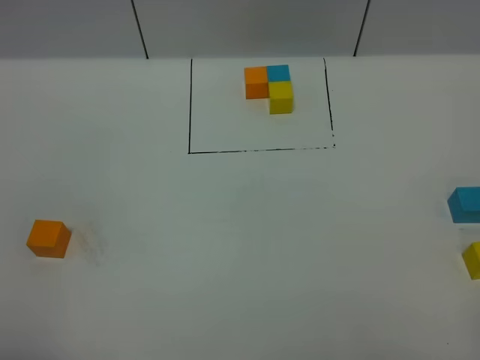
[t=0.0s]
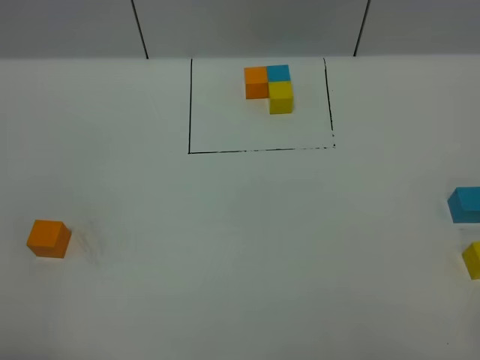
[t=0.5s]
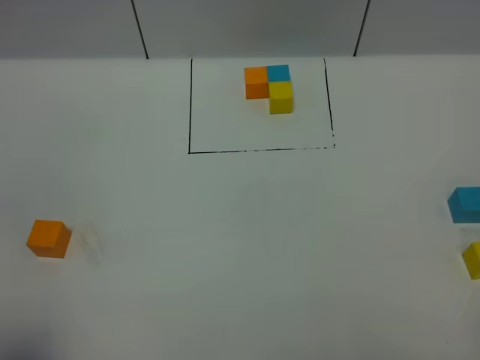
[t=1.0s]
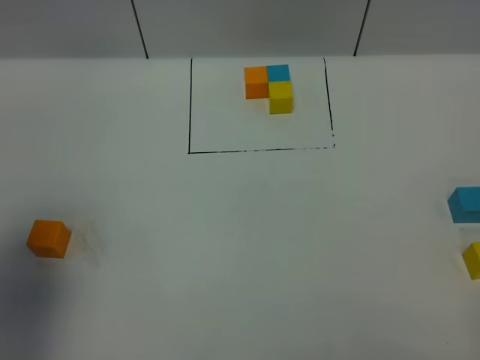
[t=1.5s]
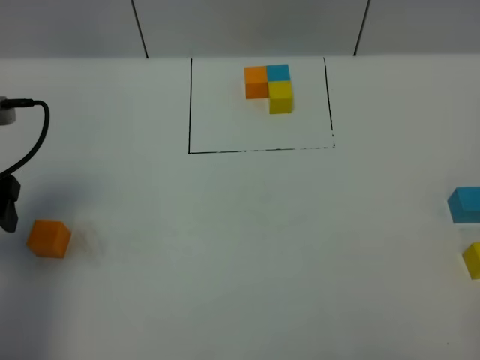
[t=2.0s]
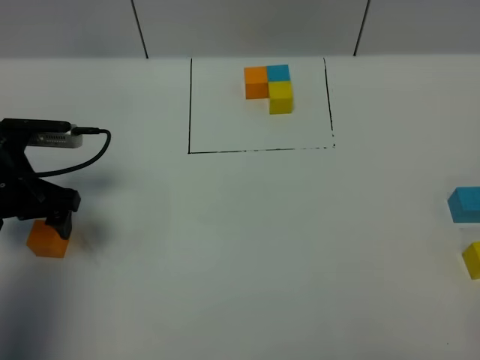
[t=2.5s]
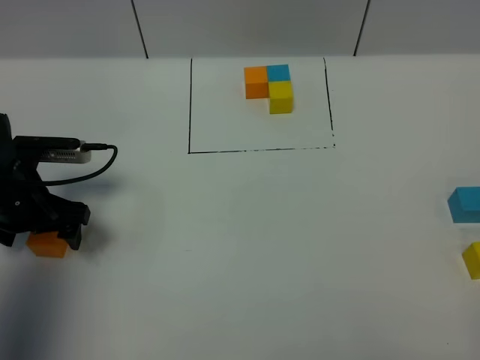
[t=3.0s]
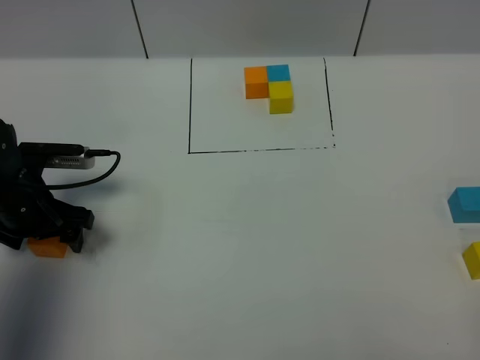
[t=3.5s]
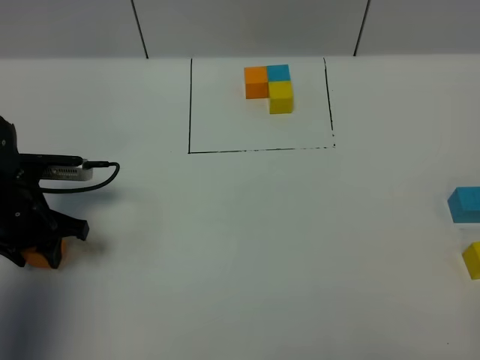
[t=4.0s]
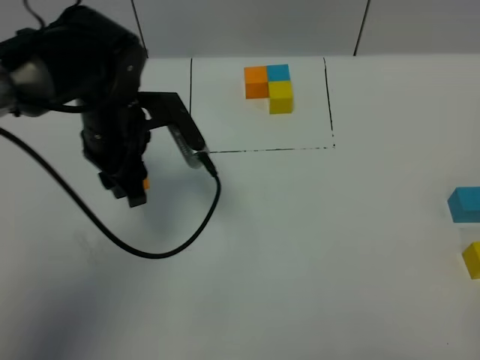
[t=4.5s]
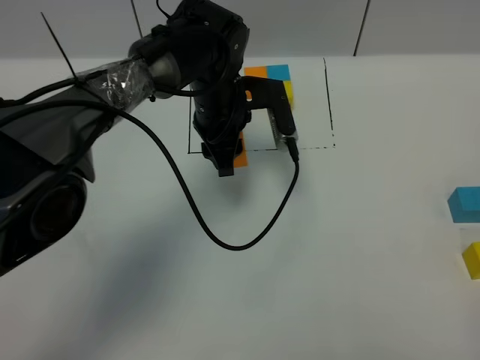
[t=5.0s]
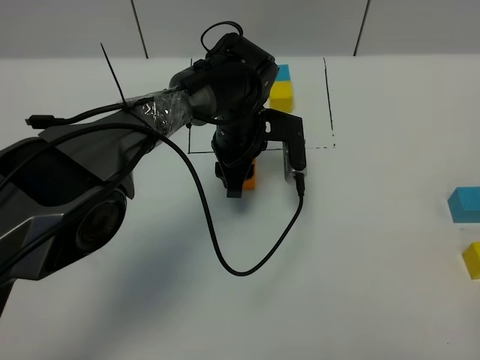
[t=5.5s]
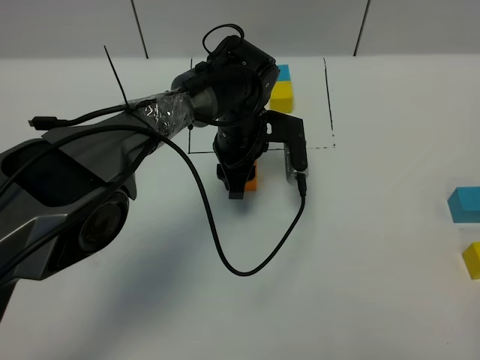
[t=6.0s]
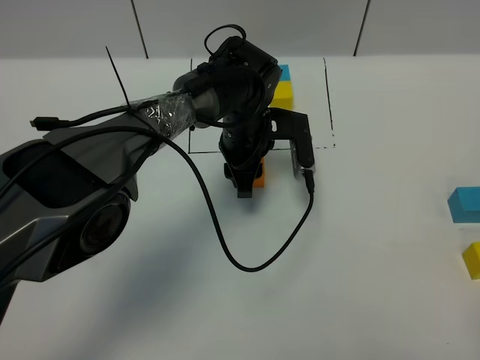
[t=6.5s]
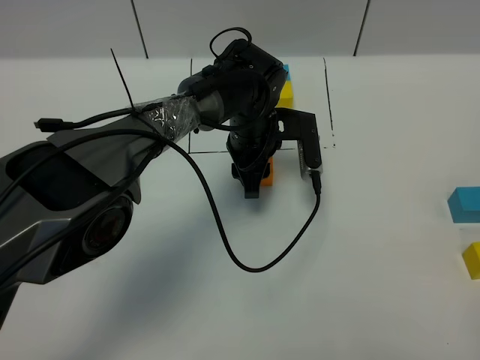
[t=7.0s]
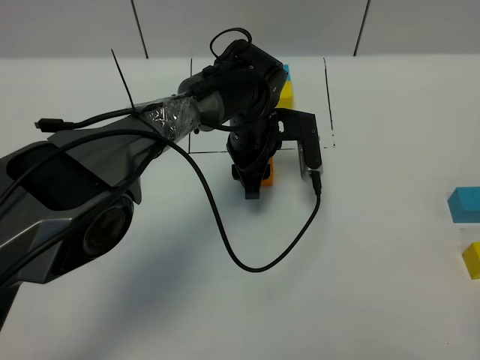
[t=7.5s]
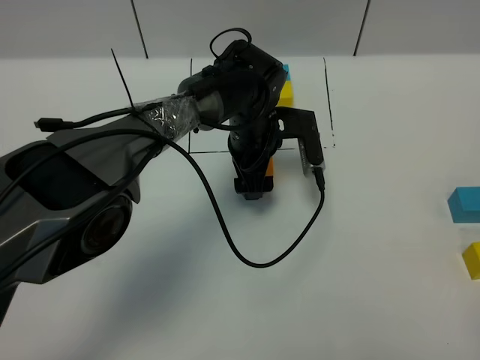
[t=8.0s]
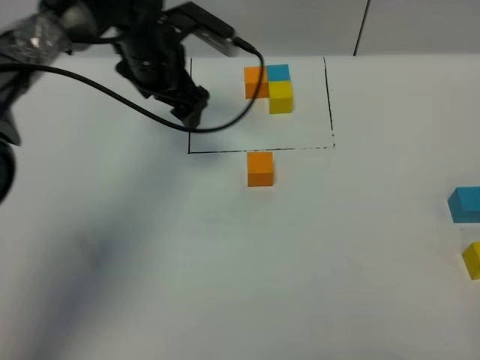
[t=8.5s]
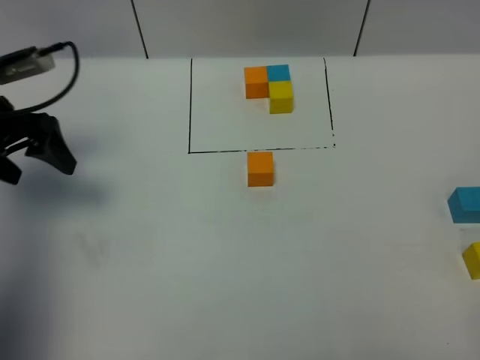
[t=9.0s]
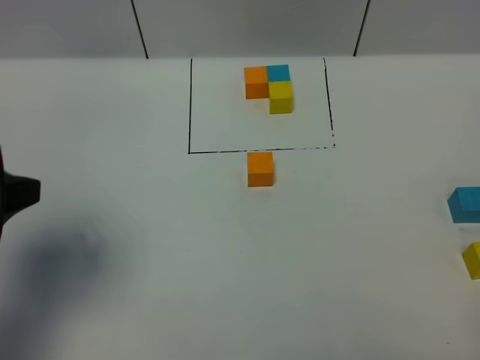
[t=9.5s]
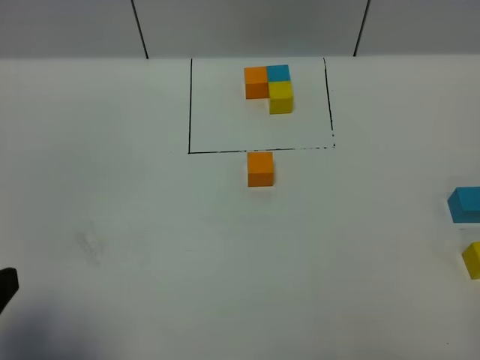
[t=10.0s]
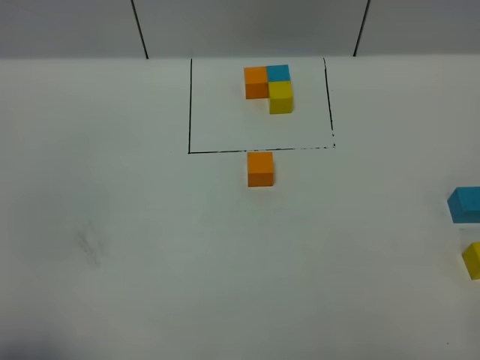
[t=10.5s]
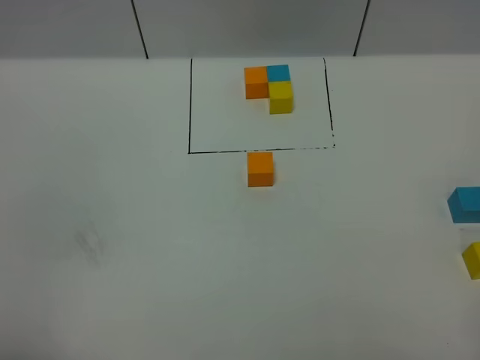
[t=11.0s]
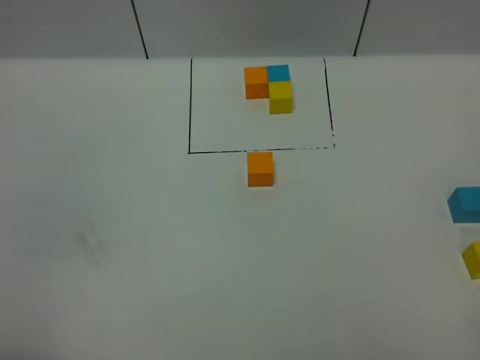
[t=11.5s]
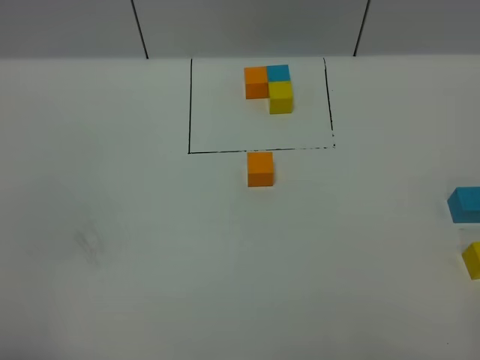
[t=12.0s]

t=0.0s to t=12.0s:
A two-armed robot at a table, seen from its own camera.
Task of the whole recording: According to the building block template in front, assemble the scattered blocks together.
Step, t=0.0s to t=7.5s: Put the orange build block in the center of the table.
t=0.0s to t=2.0s: The left gripper is displaced forward by approximately 25 cm.
t=2.0s to t=4.0s: The left gripper goes some 10 cm downward, and closes up.
t=4.0s to t=6.0s: The left gripper shifts about 30 cm to the right and forward.
t=6.0s to t=8.0s: The left gripper opens its fingers.
t=8.0s to t=10.0s: The left gripper heads backward, to the left and upward, covering some 50 cm.
t=10.0s to t=12.0s: The left gripper is displaced backward by some 5 cm.

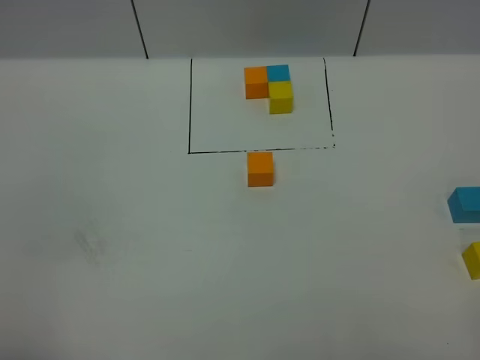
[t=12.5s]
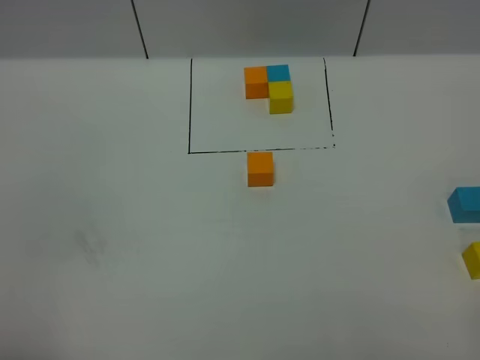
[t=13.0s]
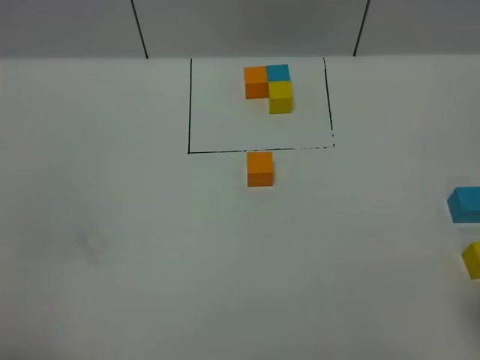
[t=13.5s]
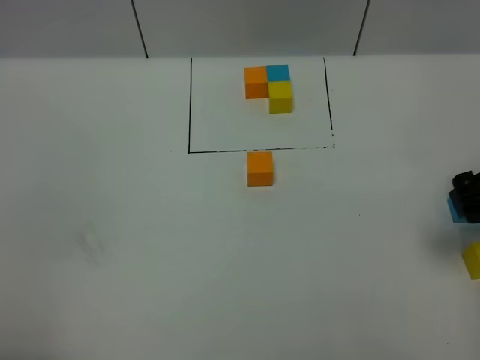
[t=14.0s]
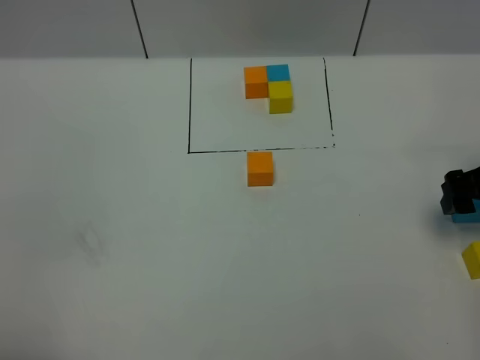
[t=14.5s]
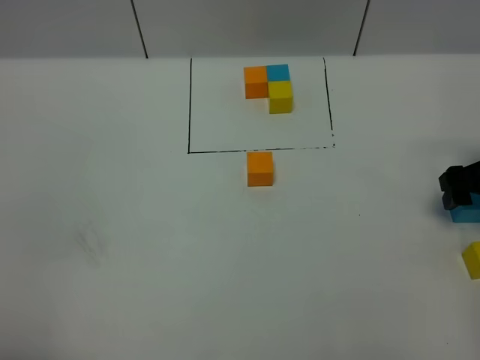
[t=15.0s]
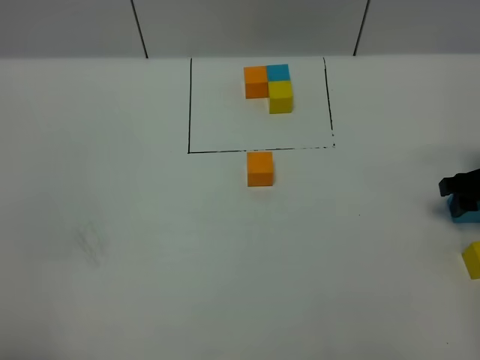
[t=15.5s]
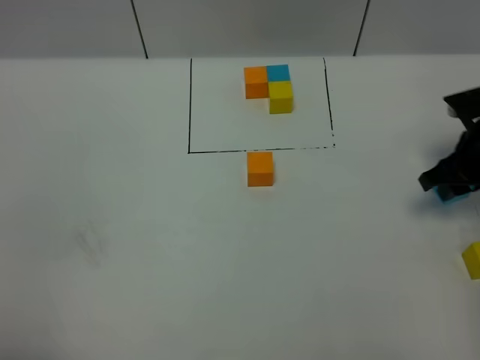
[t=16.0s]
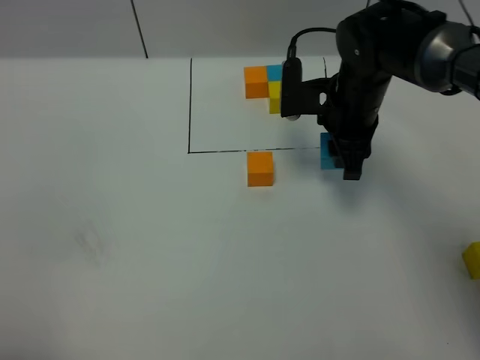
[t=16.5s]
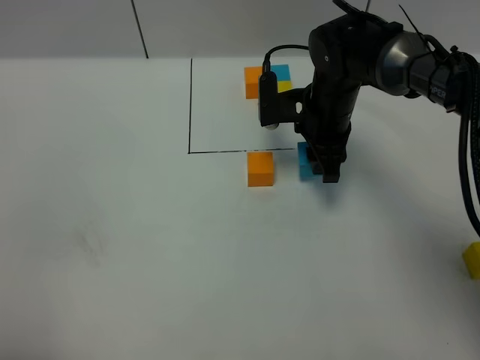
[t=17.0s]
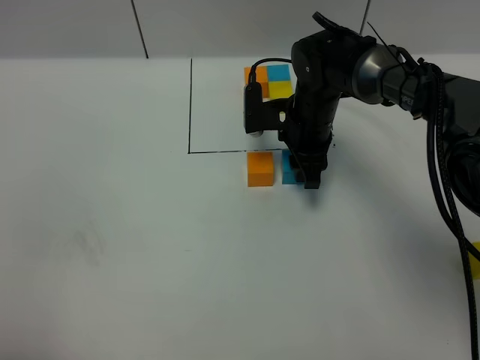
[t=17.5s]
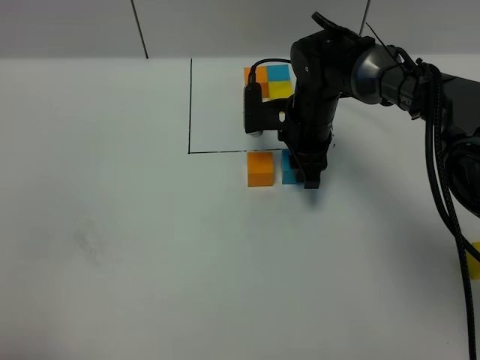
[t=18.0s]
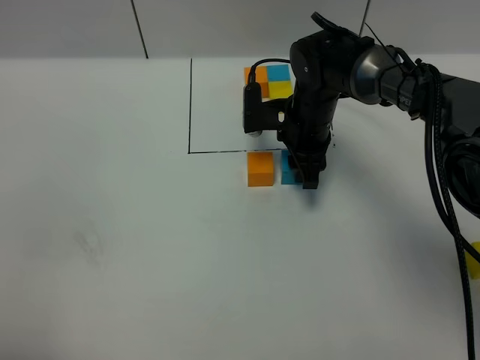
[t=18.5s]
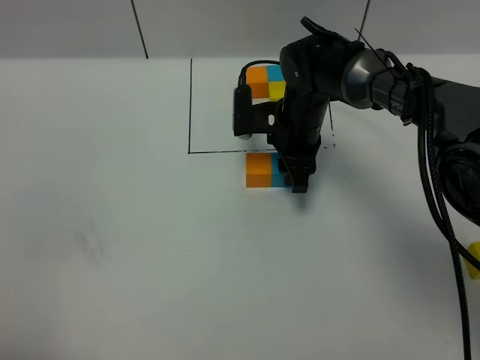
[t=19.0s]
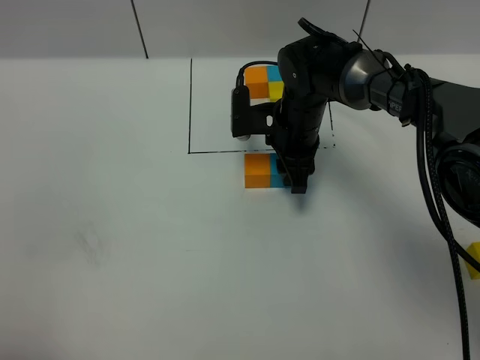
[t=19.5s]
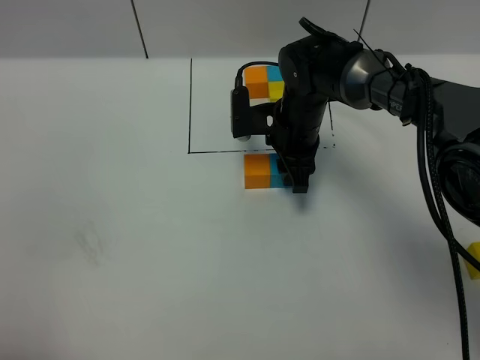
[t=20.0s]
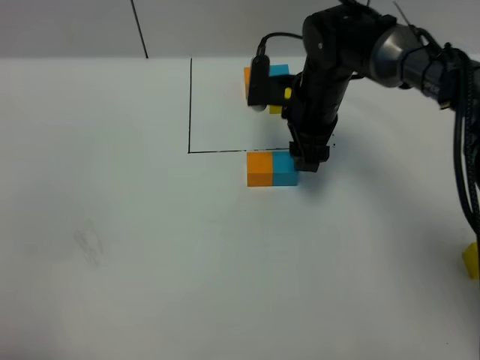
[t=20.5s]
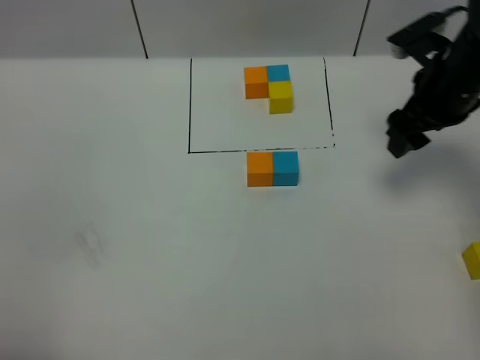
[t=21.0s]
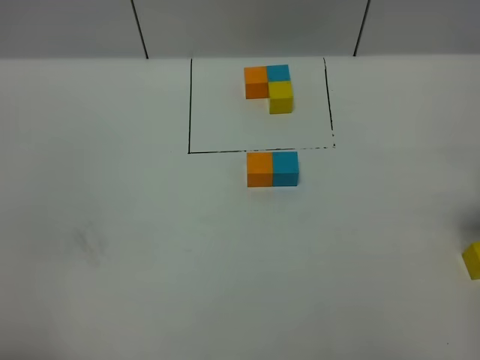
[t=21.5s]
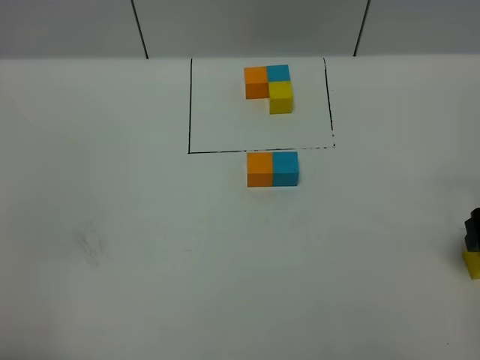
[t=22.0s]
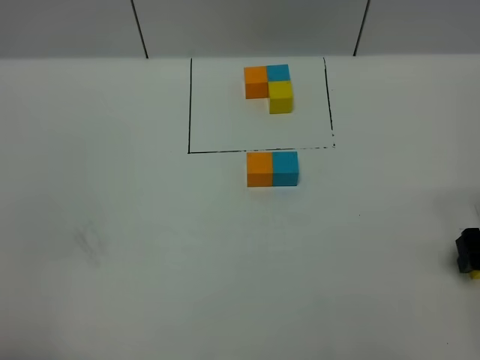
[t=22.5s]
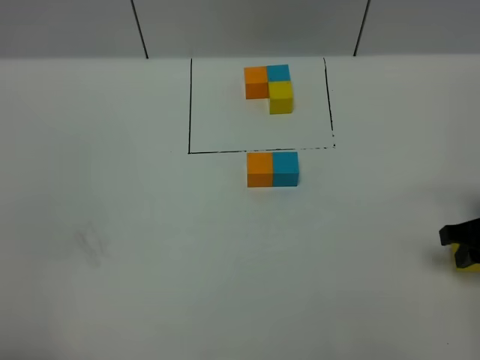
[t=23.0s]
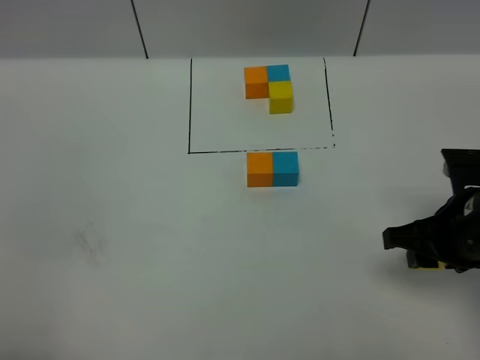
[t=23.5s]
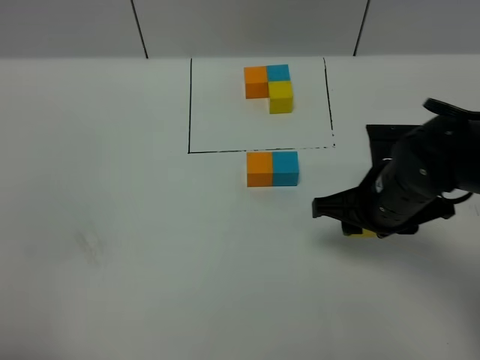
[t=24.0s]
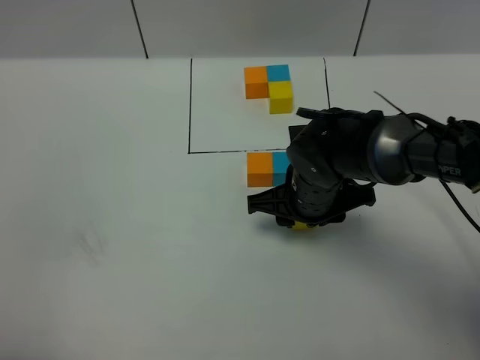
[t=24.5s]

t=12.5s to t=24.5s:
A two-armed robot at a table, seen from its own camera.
Task of the whole recording: According to the building block template in front, assemble the scattered blocks together.
Step, t=12.5s to t=20.0s: Put the blue build block on the right of orange the build block.
t=12.5s to t=14.5s: The right gripper moves forward, roughly 30 cm, and opens up.
t=14.5s to t=16.5s: The right gripper shifts approximately 20 cm to the left and forward, and closes up.
t=16.5s to t=18.5s: The right gripper heads downward, covering approximately 5 cm.
t=18.5s to t=20.5s: The right gripper heads upward, covering about 5 cm.
t=20.5s to t=22.5s: The right gripper moves to the right and backward, roughly 30 cm.
t=22.5s to t=24.5s: The right gripper moves to the left, roughly 25 cm, and closes.

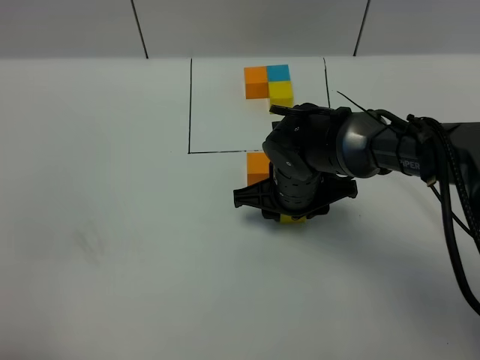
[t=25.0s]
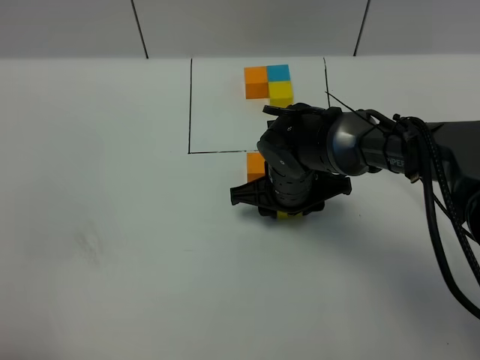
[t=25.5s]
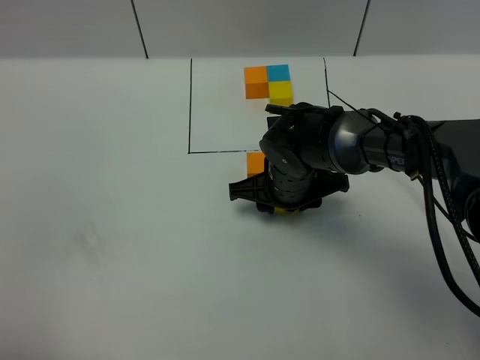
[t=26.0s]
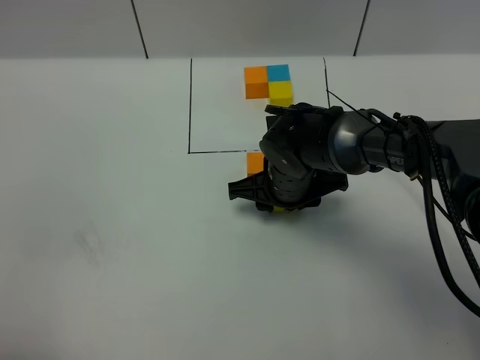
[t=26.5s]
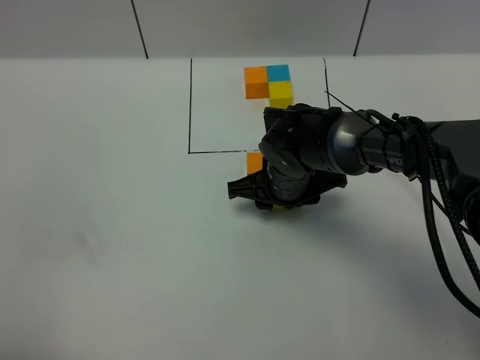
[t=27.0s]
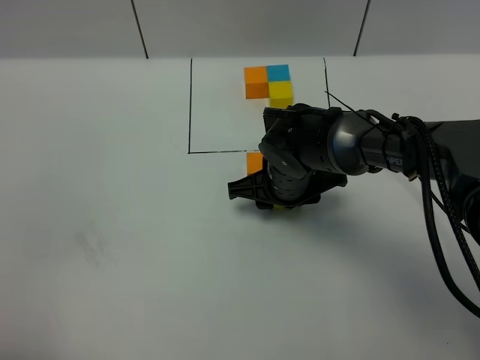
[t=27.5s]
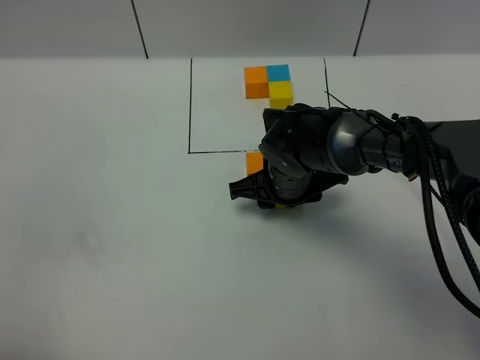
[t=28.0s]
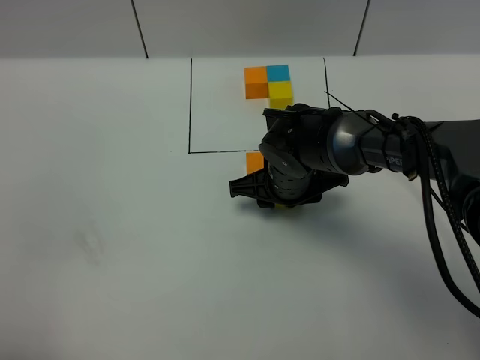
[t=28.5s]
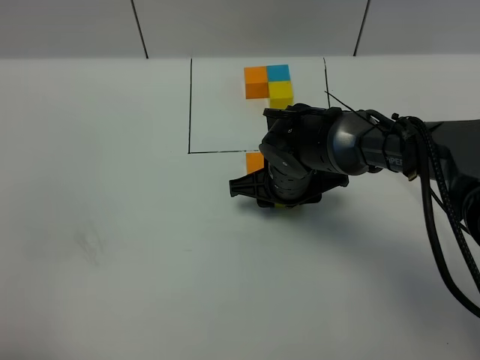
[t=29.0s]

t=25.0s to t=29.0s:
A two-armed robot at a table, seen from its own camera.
Task of the whole recording: According to the building block template in front, assemble the scattered blocks together.
t=25.0s to t=27.0s: The grippers make only small movements.
t=27.0s to t=29.0s: Neither gripper changes place.
